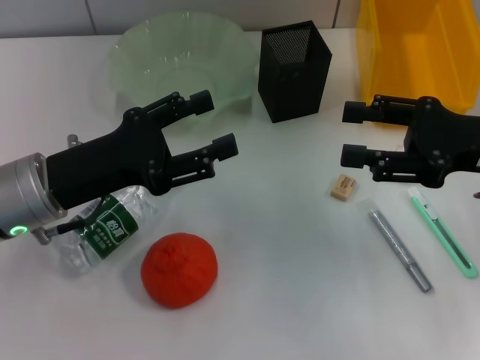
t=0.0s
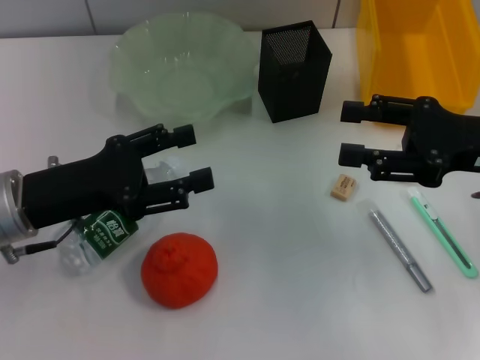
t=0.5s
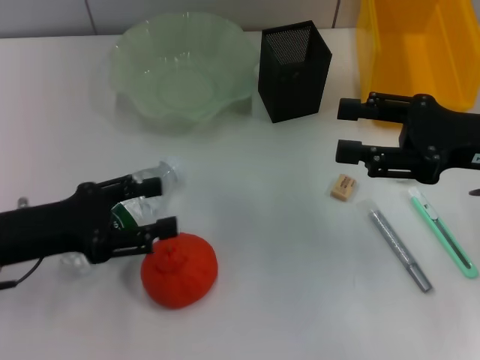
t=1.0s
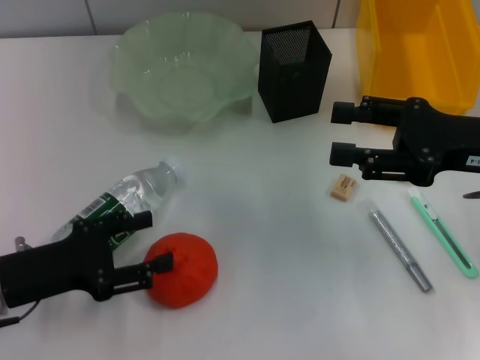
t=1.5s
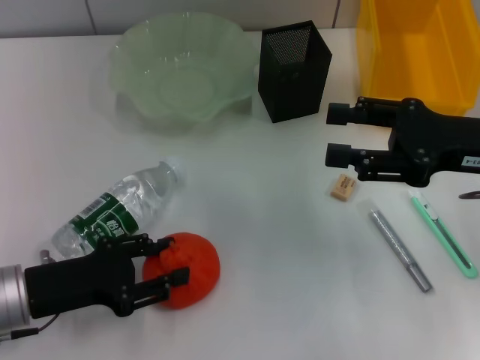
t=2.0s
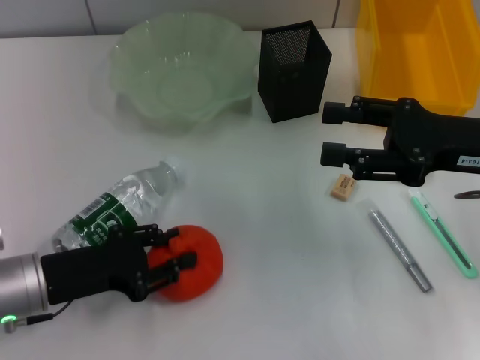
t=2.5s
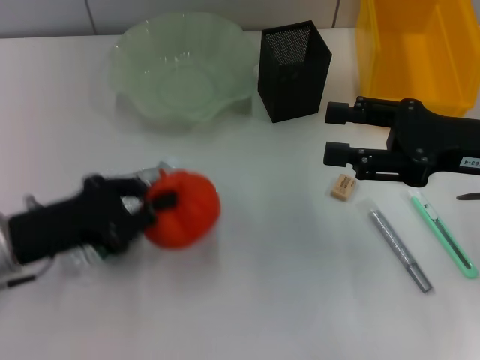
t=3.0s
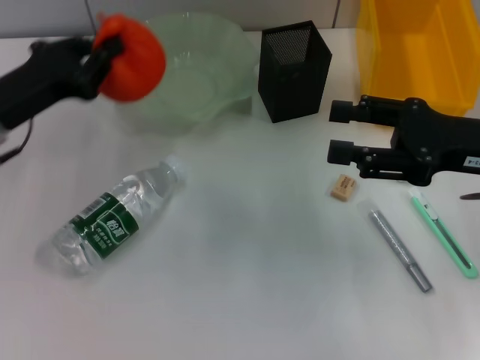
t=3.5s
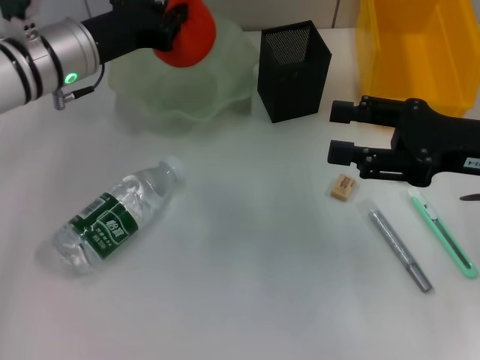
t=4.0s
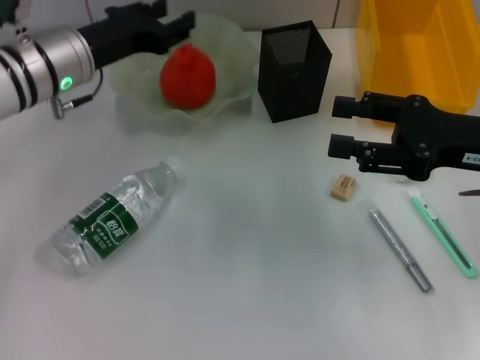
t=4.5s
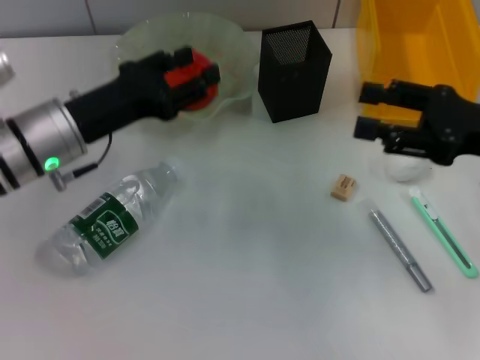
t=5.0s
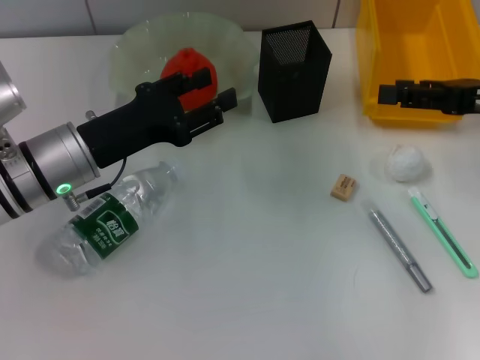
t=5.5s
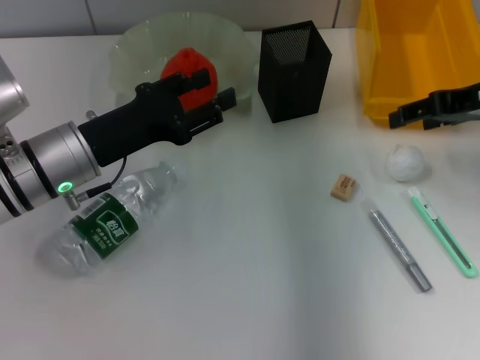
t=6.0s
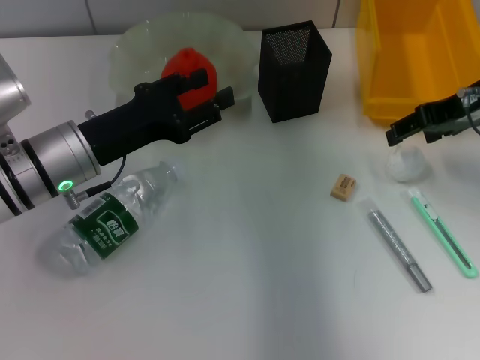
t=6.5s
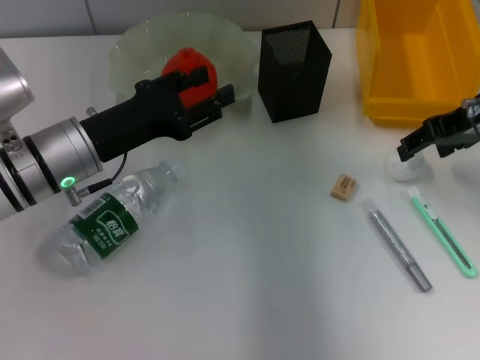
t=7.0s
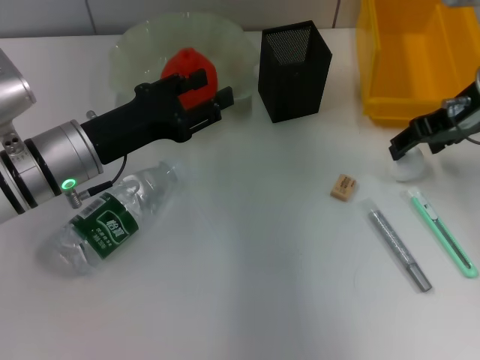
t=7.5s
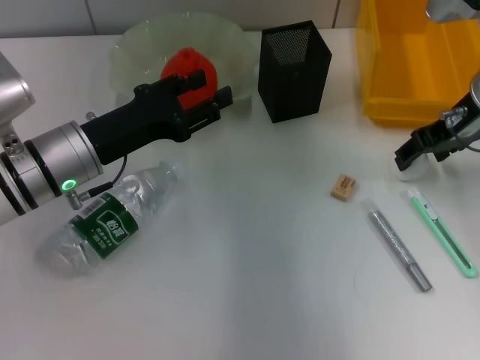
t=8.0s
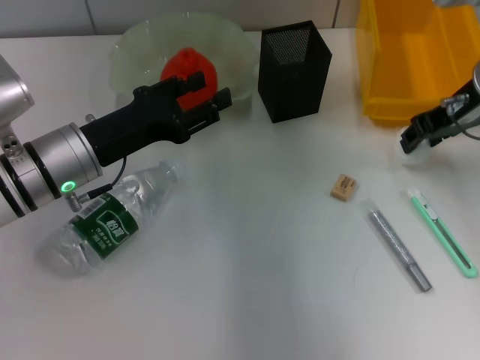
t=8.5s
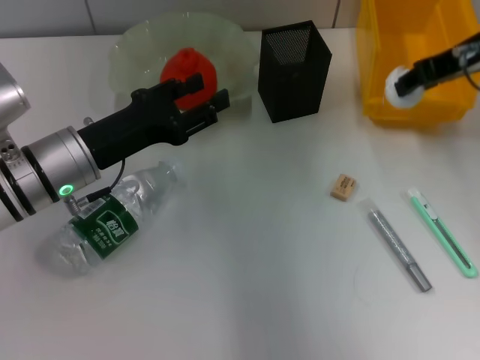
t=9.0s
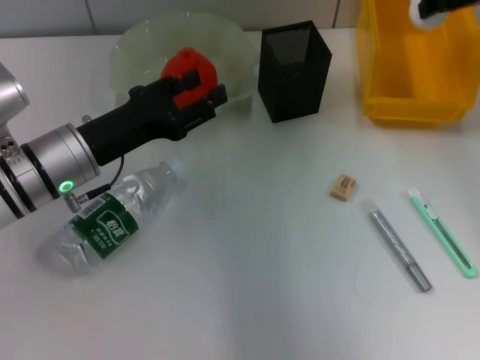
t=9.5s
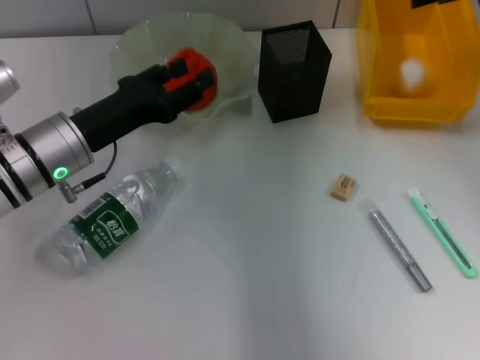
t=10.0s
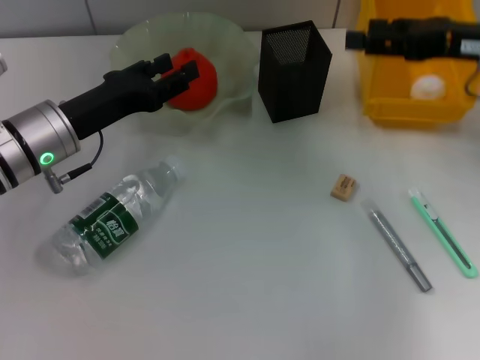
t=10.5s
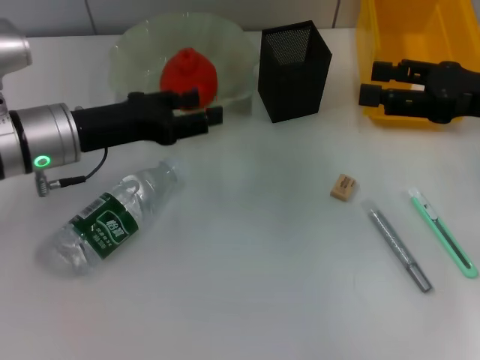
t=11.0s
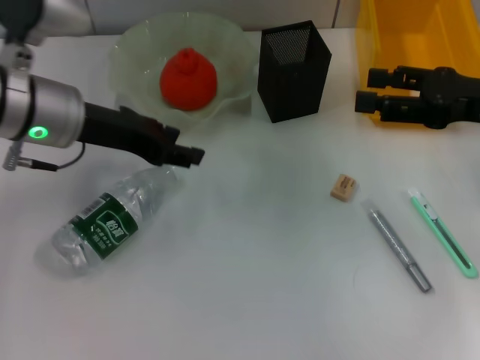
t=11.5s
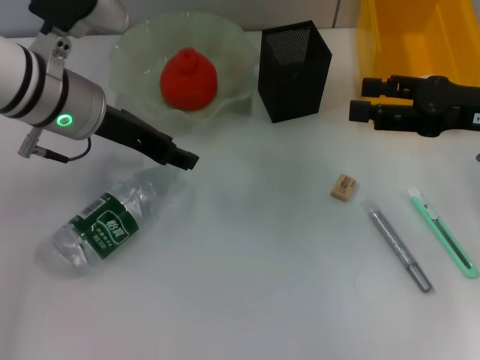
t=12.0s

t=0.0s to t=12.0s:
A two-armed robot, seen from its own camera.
Step, t=0.0s to t=2.5s: Grab the orange with the left hand.
Step, t=3.0s to t=4.0s: Place the orange into the fruit bowl with the left hand.
Step, t=5.0s to t=8.0s: Grab the paper ball with the right hand.
Step, t=8.5s to t=10.0s: Place the paper ball into the trash can with the right hand.
t=0.0s to t=2.0s: The left gripper travels downward and backward by roughly 10 cm.
t=2.0s to t=4.0s: The left gripper heads forward and upward, covering roughly 20 cm, and closes its fingers.
t=4.0s to t=6.0s: The left gripper travels backward by approximately 10 cm, and opens; the right gripper travels forward by some 5 cm.
t=6.0s to t=8.0s: The right gripper shifts by about 5 cm.
t=8.0s to t=10.0s: The right gripper moves upward, some 10 cm, and closes, then opens again.
t=10.0s to t=12.0s: The left gripper is displaced upward by some 10 cm. The right gripper moves backward and downward, roughly 15 cm.

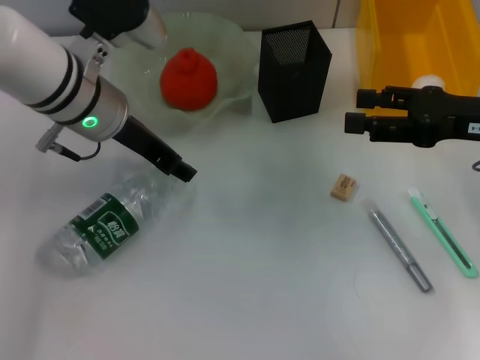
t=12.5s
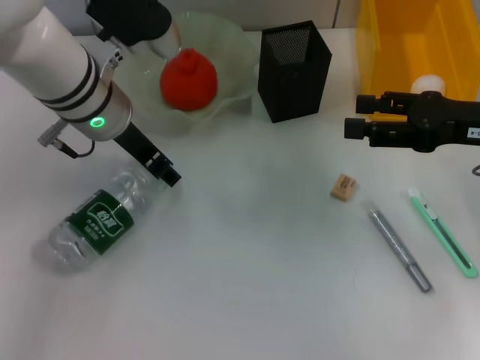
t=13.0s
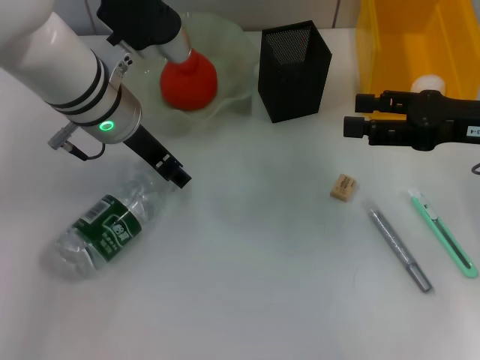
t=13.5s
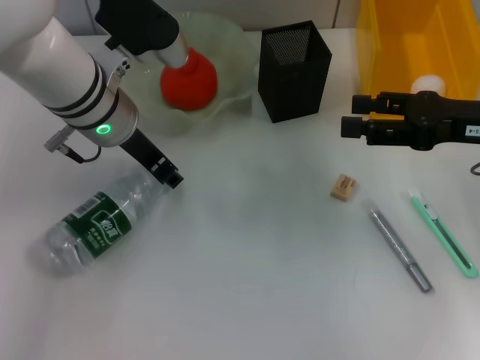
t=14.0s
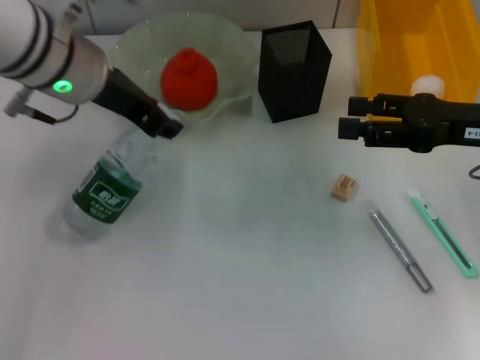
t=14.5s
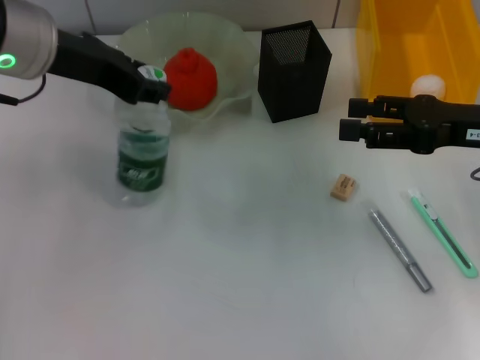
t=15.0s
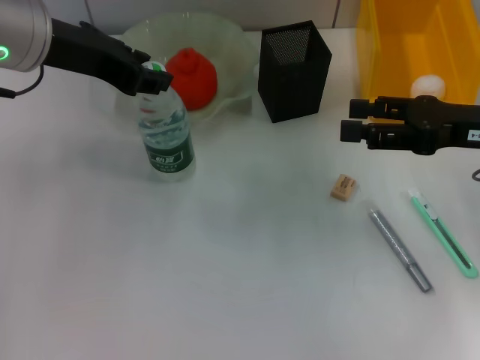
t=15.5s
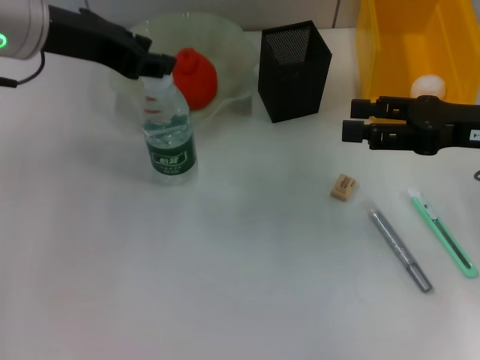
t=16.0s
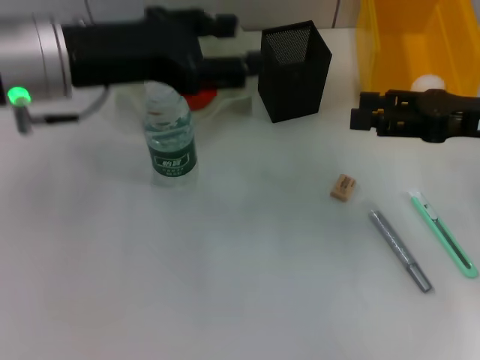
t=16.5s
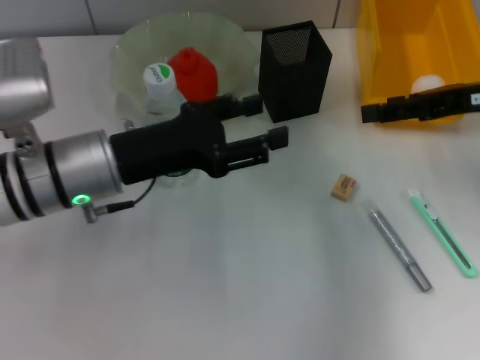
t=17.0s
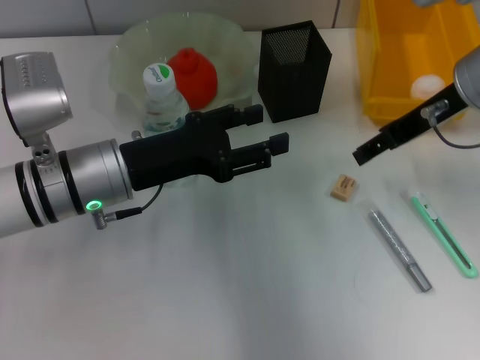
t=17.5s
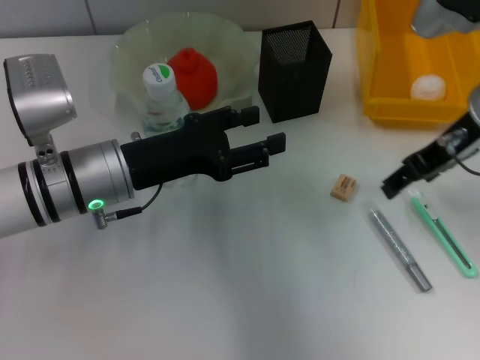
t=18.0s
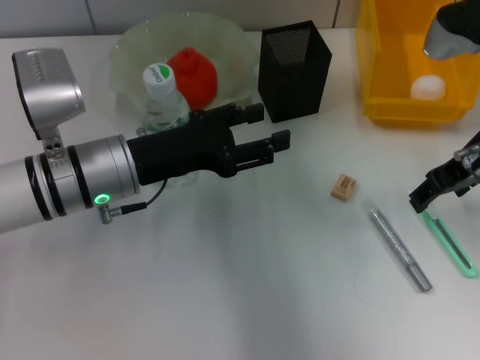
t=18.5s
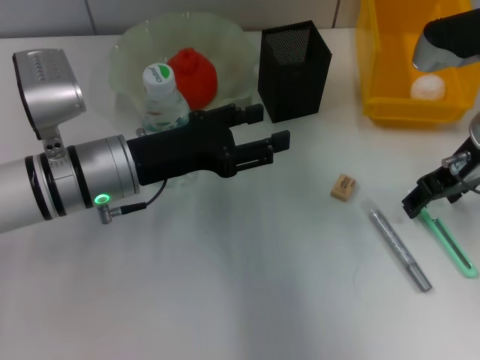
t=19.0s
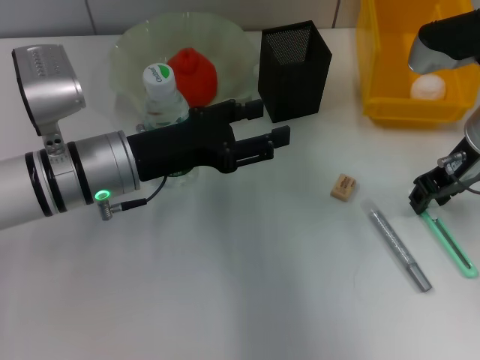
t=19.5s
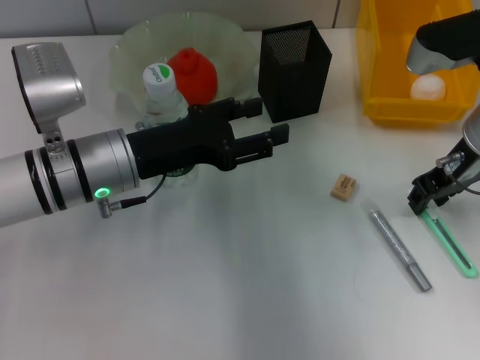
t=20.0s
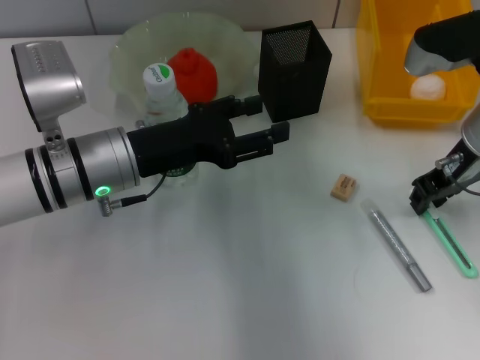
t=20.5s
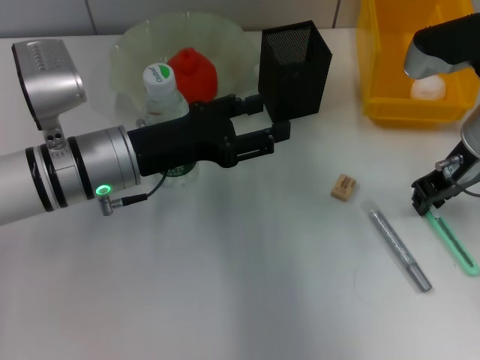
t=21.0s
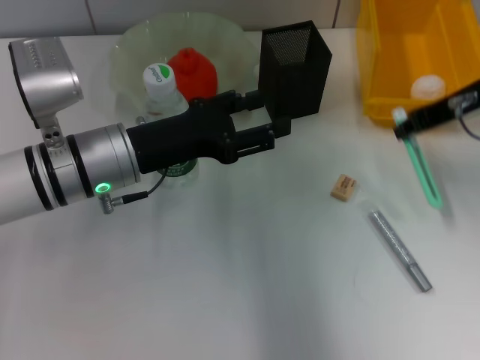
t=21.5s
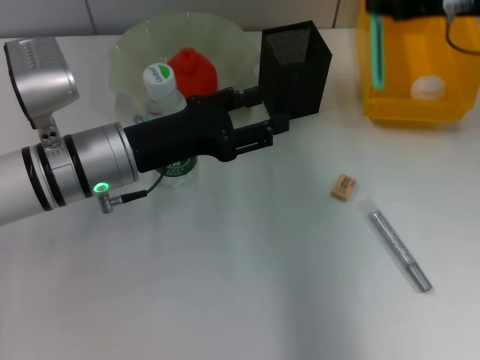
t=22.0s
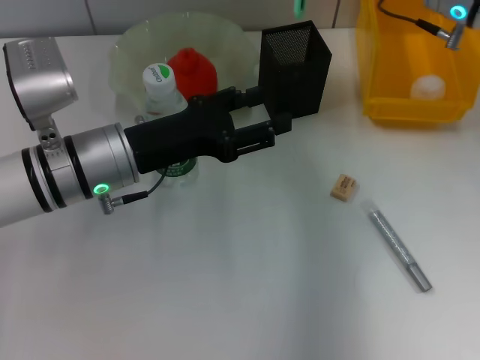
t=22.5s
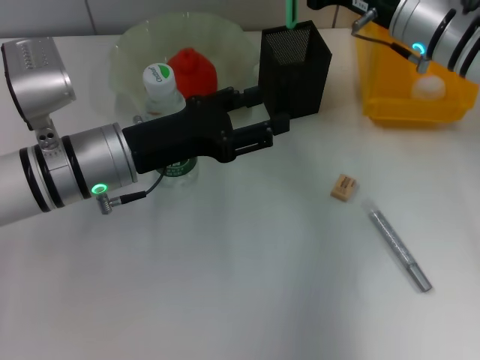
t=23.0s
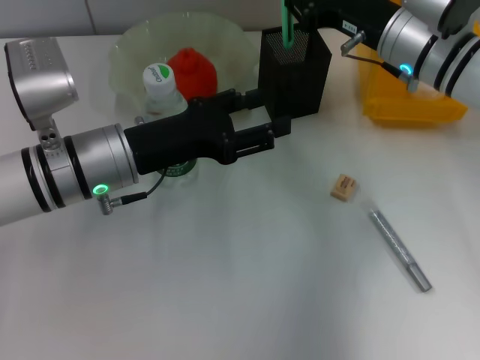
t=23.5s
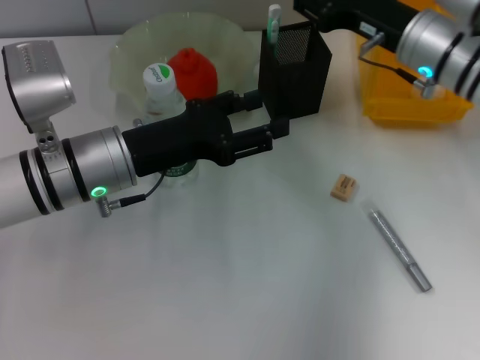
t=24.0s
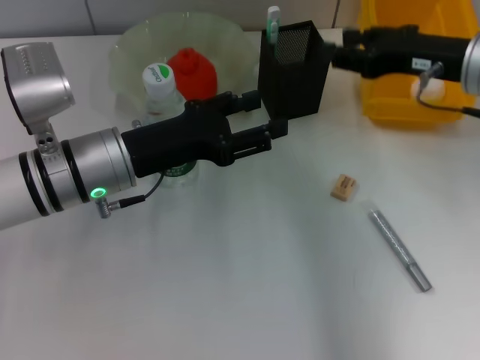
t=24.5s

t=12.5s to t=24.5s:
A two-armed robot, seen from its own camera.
Step, t=14.0s to t=15.5s: Place the water bottle on the table with the left hand.
Step, t=16.0s to t=20.5s: Grab the blue utility knife with the right hand.
Step, t=21.5s to t=23.5s: Place the blue utility knife into the pen holder with the right hand.
t=12.5s to t=14.5s: The grippers stay close to where they were, moving slightly.
t=14.5s to t=16.5s: The left gripper shifts by about 5 cm, and opens its fingers.
t=16.5s to t=18.5s: The left gripper travels downward by some 10 cm, while the right gripper shifts approximately 5 cm to the left.
t=18.5s to t=20.5s: The right gripper closes.
t=20.5s to t=22.5s: The right gripper moves about 5 cm.
t=22.5s to t=24.5s: The right gripper travels backward by roughly 5 cm, and opens up.

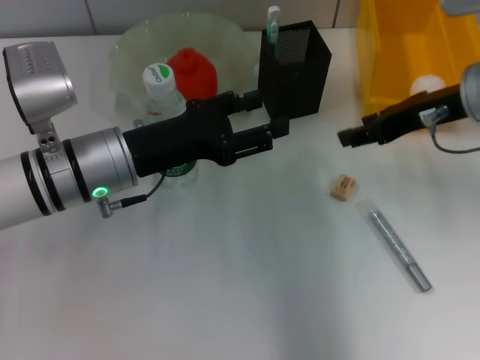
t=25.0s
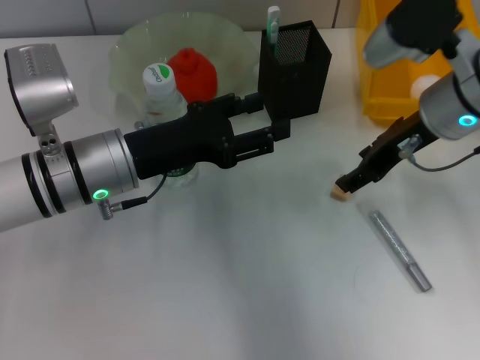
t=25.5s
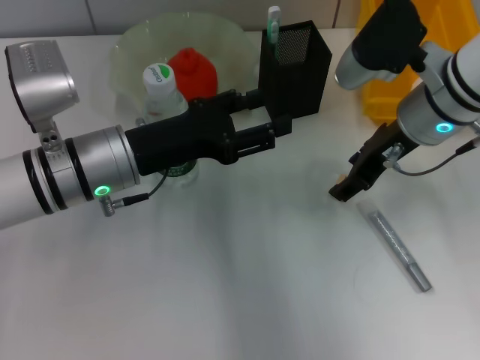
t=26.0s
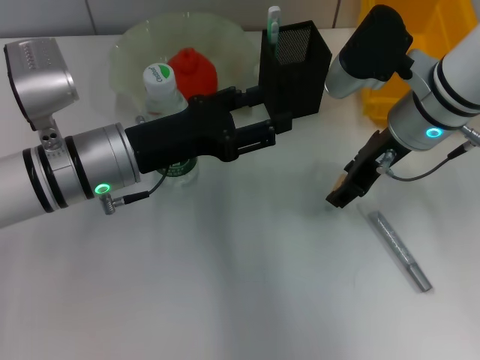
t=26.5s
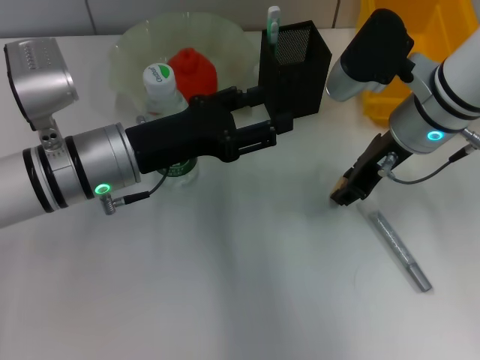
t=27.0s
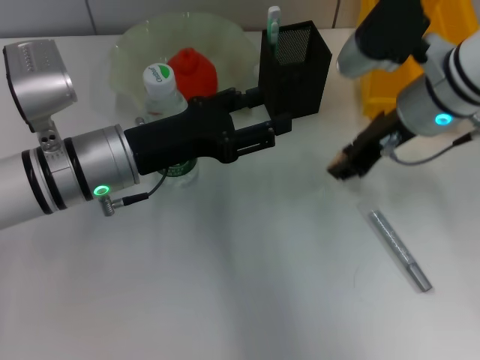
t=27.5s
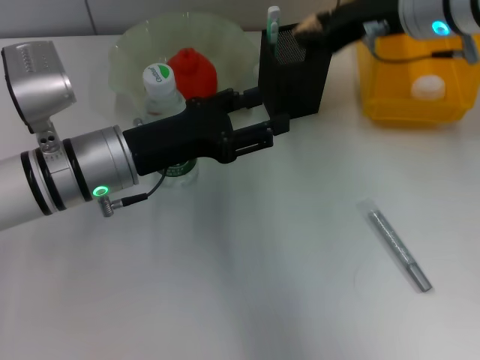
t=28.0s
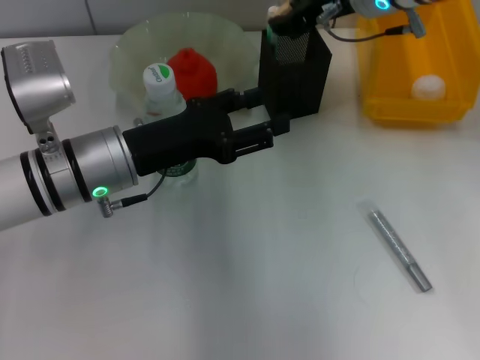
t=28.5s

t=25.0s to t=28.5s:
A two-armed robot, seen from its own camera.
Step, t=25.0s to t=27.0s: Grab the eraser with the right hand.
t=25.0s to t=27.0s: The right gripper is displaced to the left by roughly 5 cm.
t=27.0s to t=28.5s: The right gripper shifts about 10 cm upward and forward.
